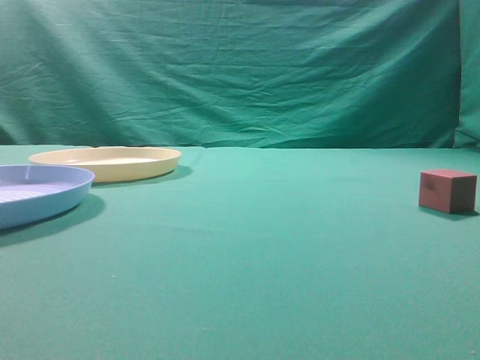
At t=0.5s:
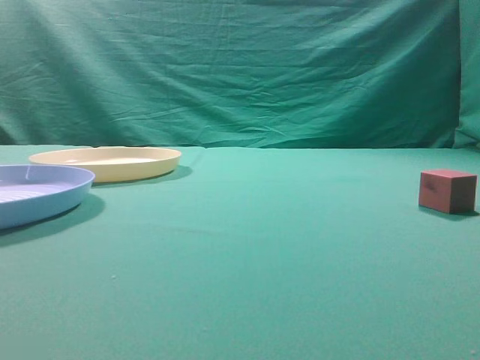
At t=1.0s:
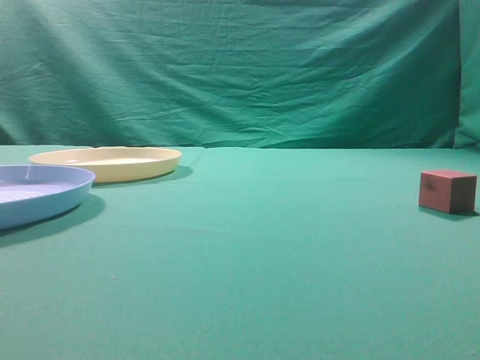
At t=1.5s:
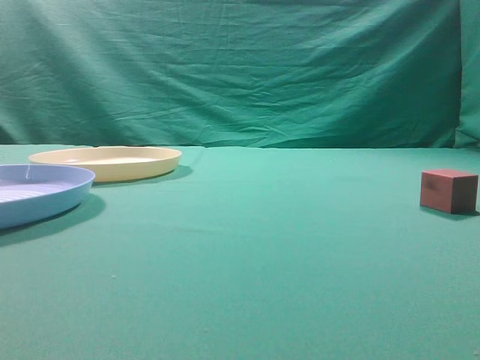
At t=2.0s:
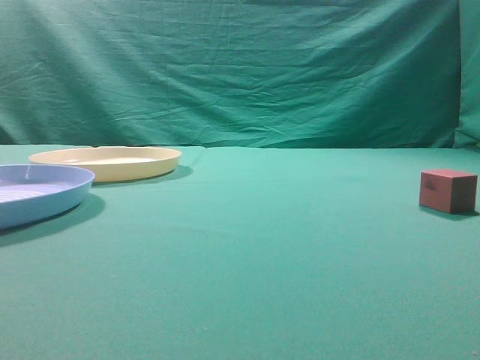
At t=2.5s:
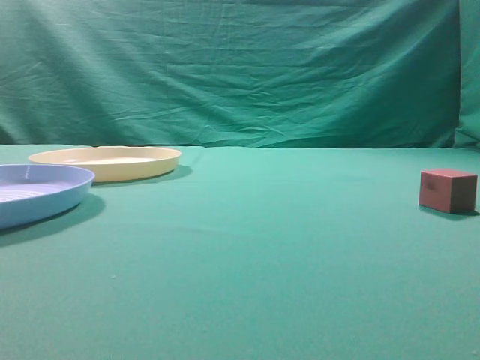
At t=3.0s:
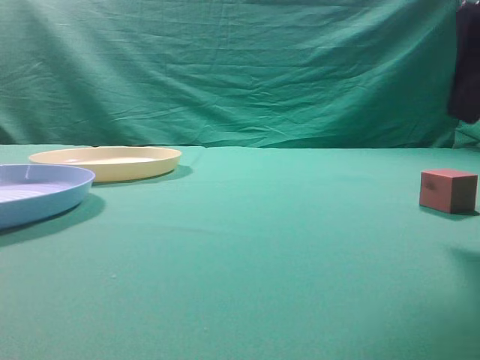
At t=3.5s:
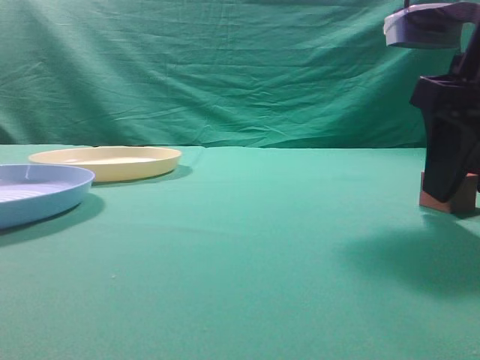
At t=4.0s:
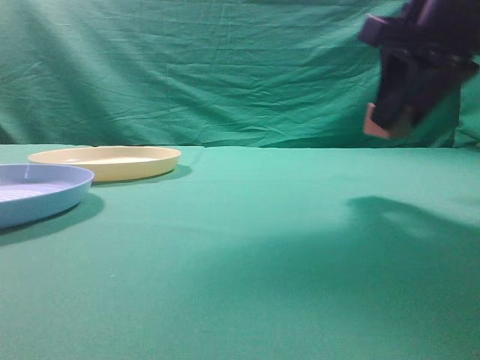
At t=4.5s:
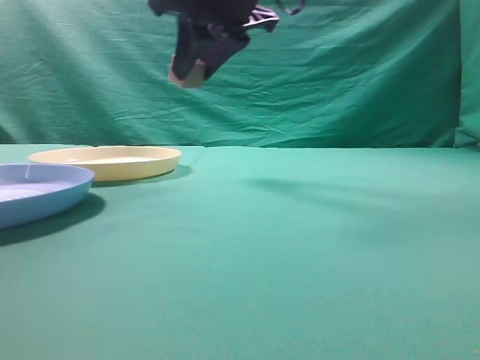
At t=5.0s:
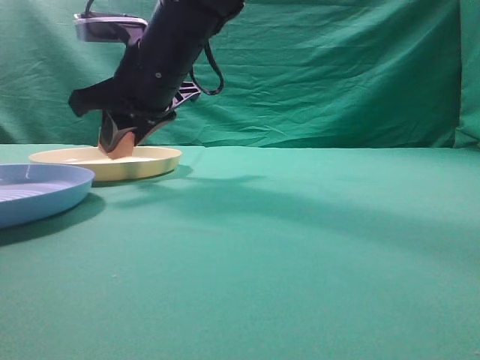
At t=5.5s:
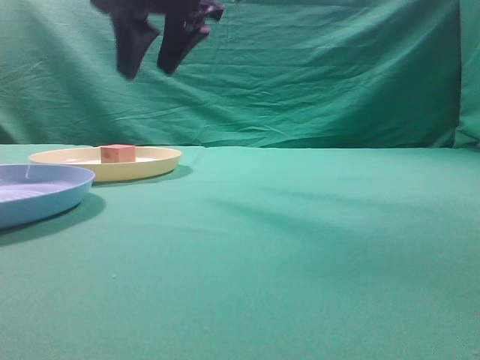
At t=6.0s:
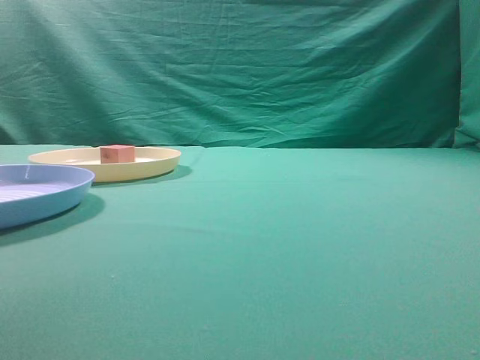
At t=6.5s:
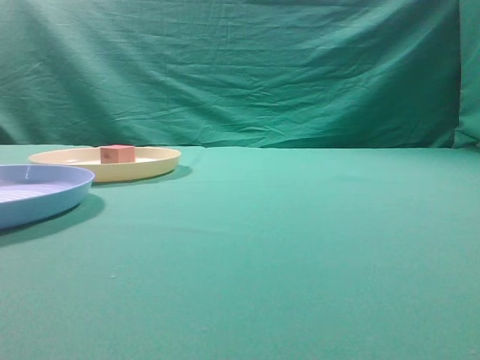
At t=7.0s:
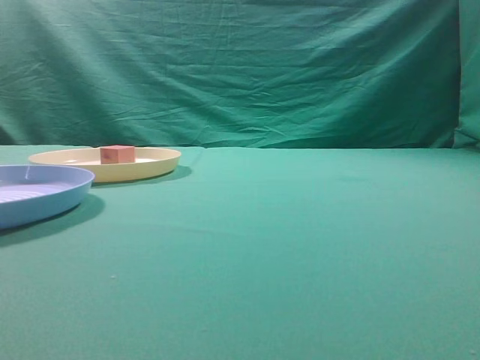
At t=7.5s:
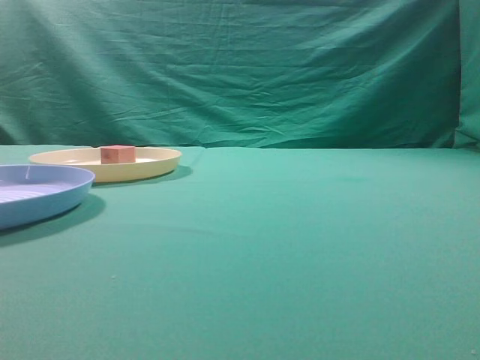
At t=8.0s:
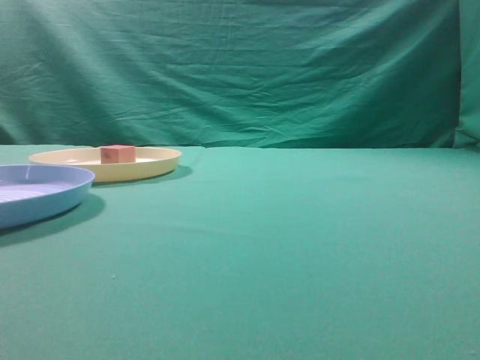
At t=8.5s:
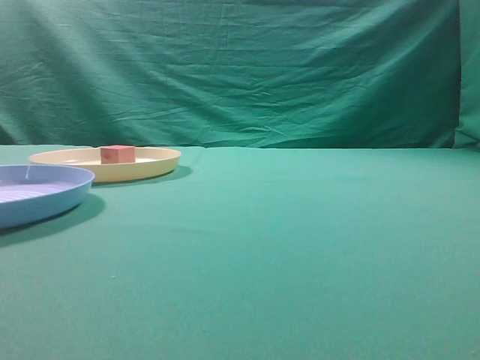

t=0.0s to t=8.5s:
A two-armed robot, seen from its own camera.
Task of the whole recording: pick up the cube block from the table and put it on the plate.
Step, t=0.0s to t=3.5s: Grasp the small cube on the table.
Step, t=4.0s to t=5.0s: Place it into the yellow plate.
t=2.0s to t=4.0s: The right gripper shifts some 30 cm forward and to the left, and opens up.
t=4.0s to t=6.5s: The right gripper is displaced backward and to the right by roughly 35 cm, and closes up.
